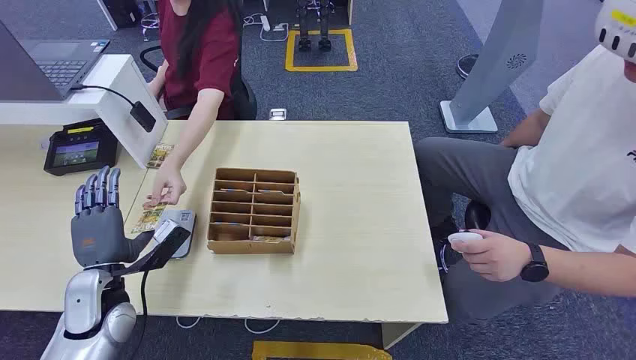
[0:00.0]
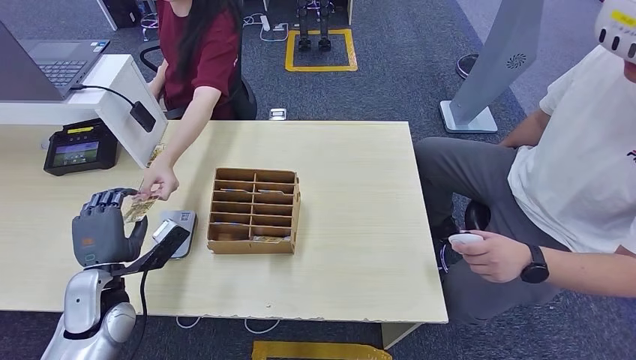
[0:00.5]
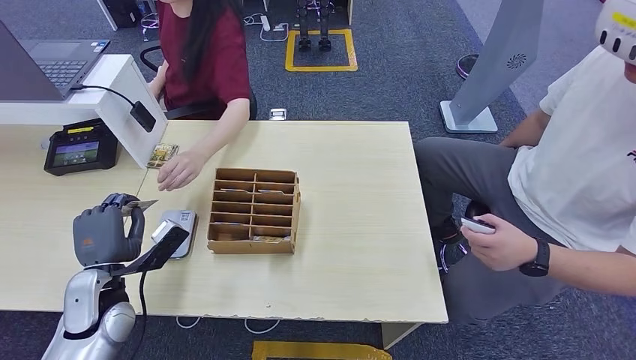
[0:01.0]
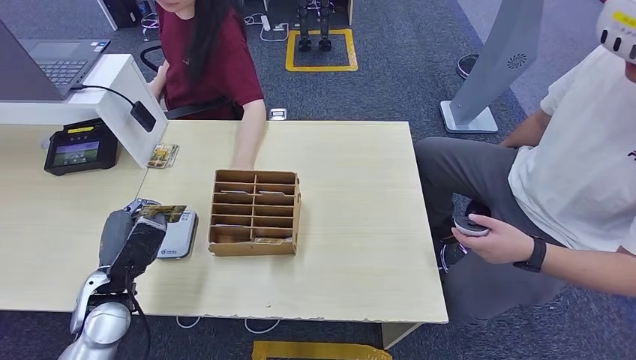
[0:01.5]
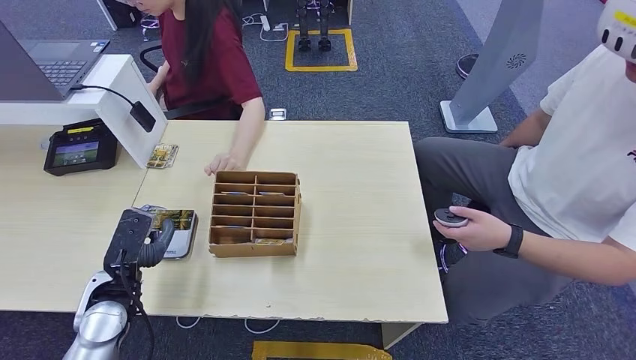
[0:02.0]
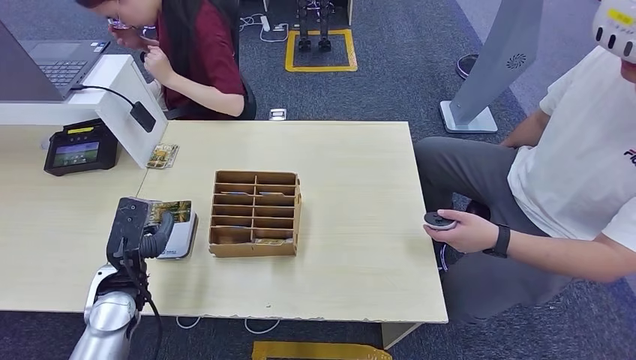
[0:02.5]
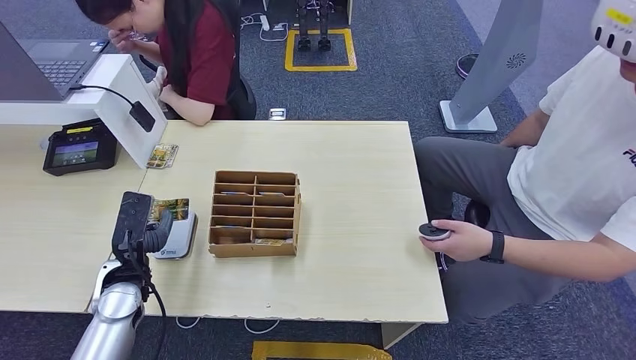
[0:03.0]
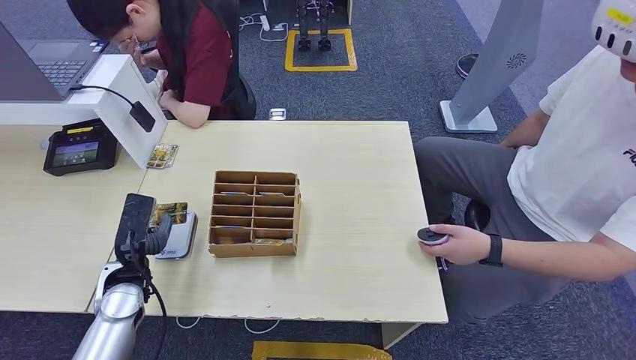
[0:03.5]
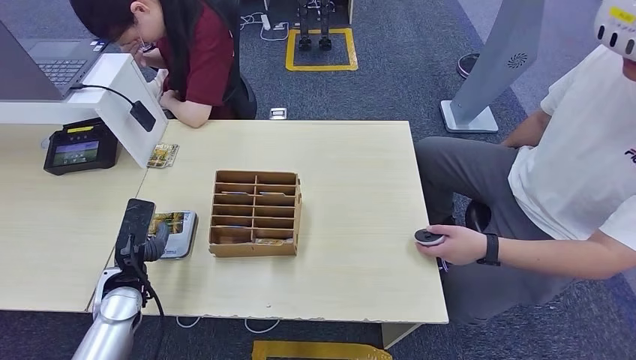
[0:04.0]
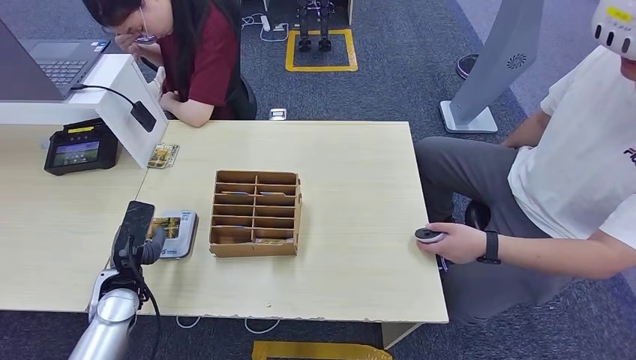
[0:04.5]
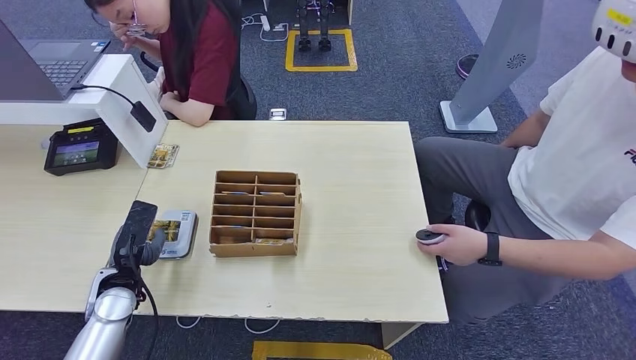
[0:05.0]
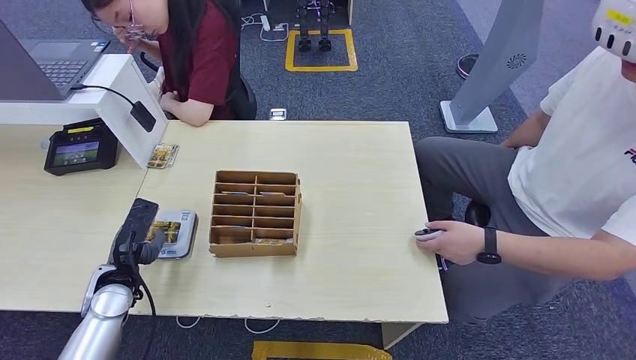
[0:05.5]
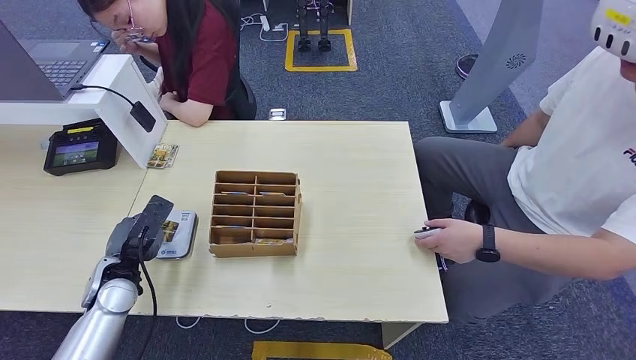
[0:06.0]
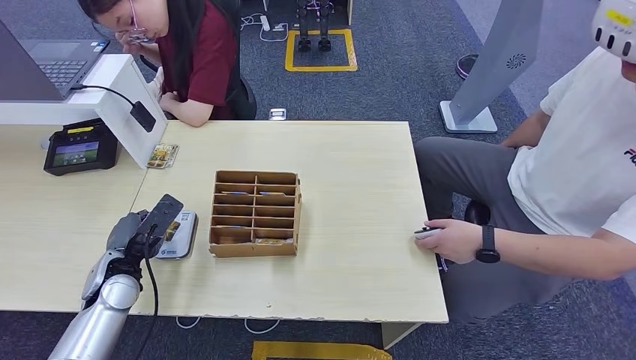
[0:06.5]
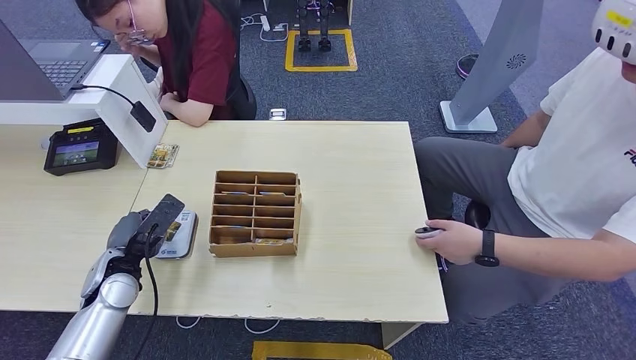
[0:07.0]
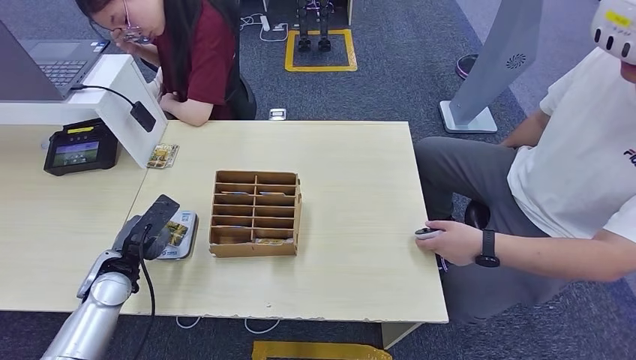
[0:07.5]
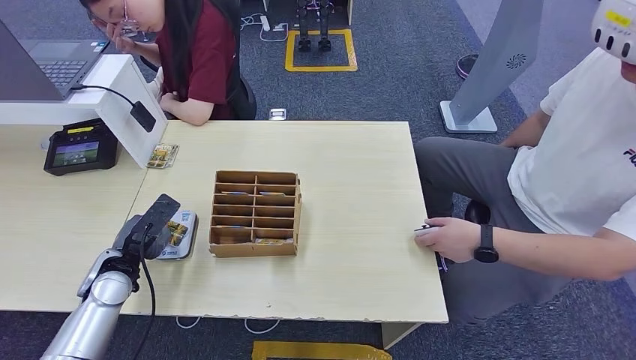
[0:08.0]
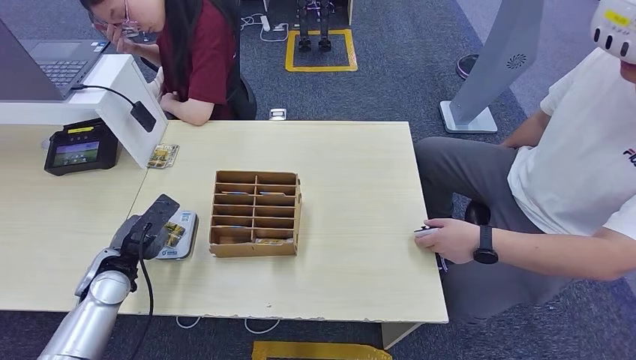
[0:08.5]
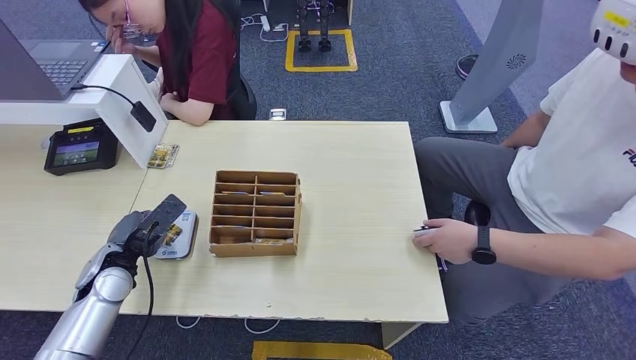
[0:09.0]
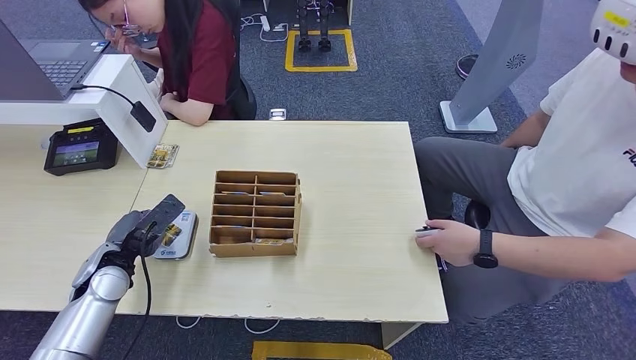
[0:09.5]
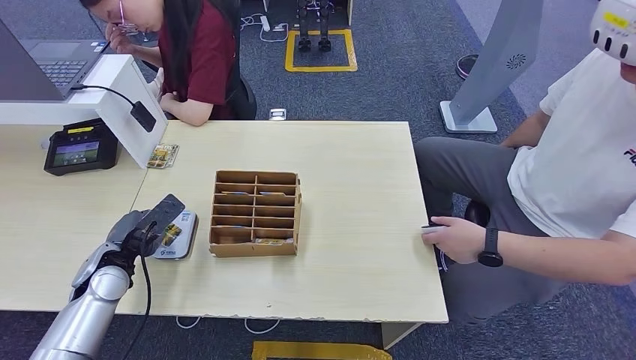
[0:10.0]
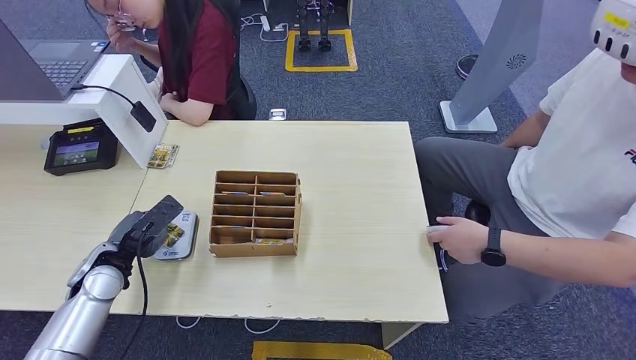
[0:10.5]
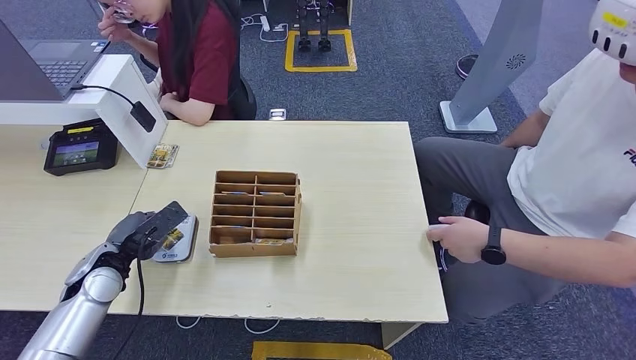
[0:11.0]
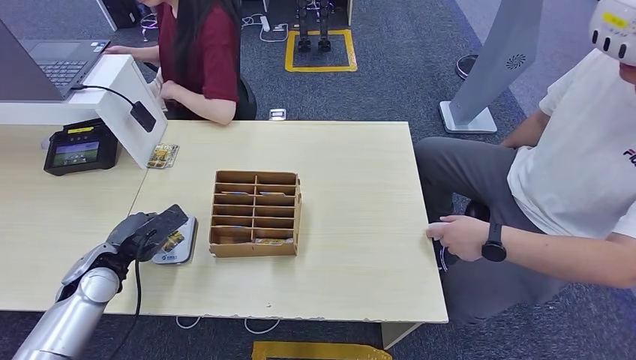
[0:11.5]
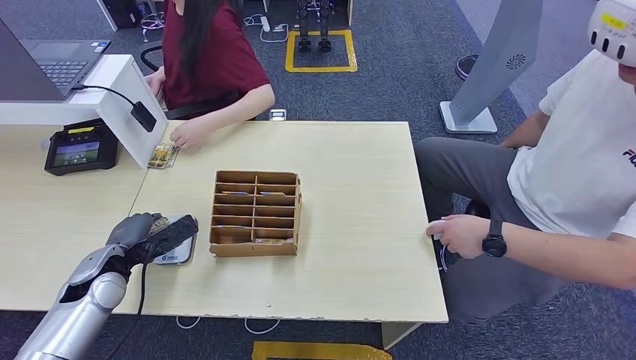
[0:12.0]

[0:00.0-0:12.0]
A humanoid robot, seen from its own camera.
Step, 0:00.0 to 0:00.5: Take the ID card from the person's hand.
Step, 0:01.0 to 0:05.5: Place the ID card on the card reader.
0:02.0 to 0:04.0: The hands stay close to where they were, moving slightly.
0:06.0 to 0:10.0: The hands make only small movements.
0:10.0 to 0:12.0: The hands stay close to where they were, moving slightly.

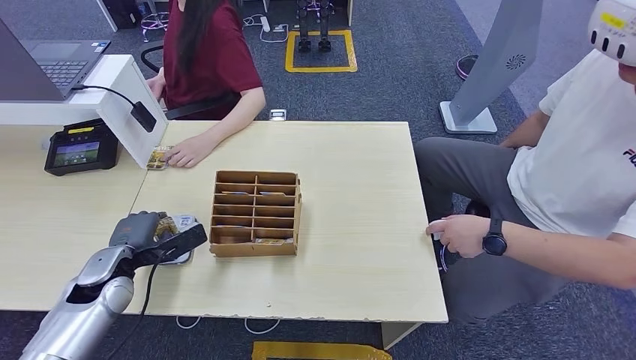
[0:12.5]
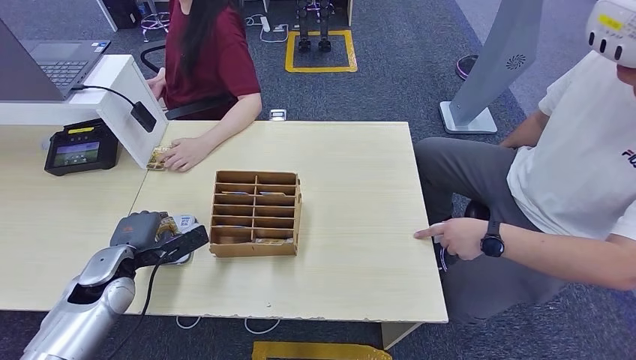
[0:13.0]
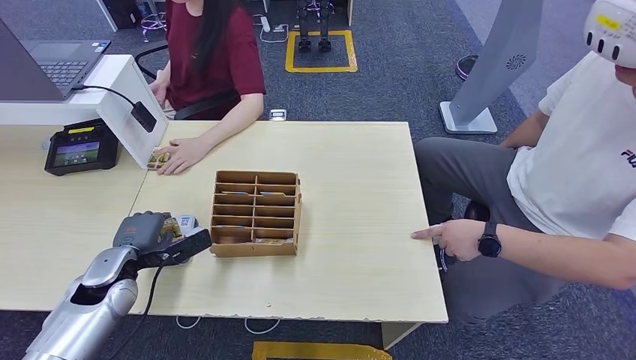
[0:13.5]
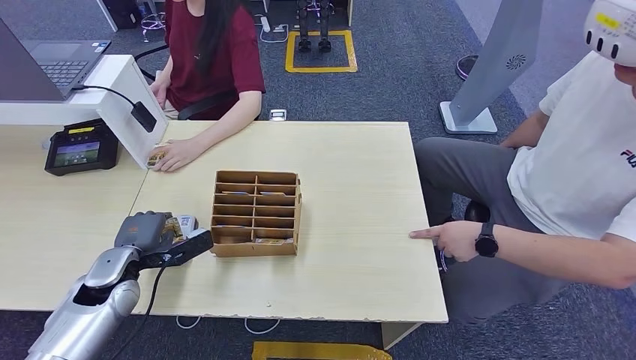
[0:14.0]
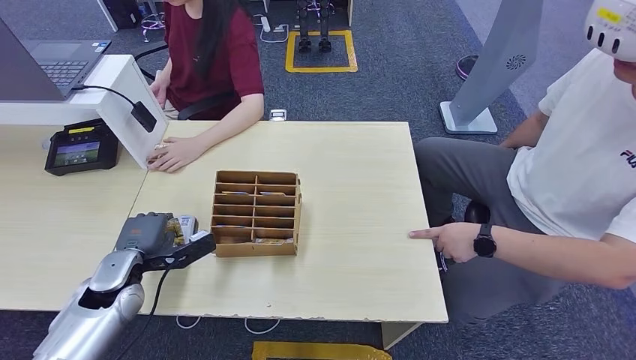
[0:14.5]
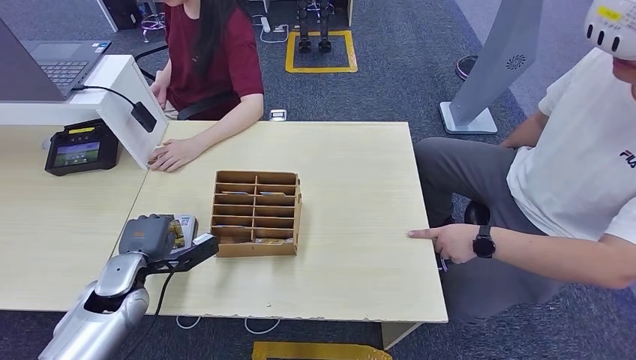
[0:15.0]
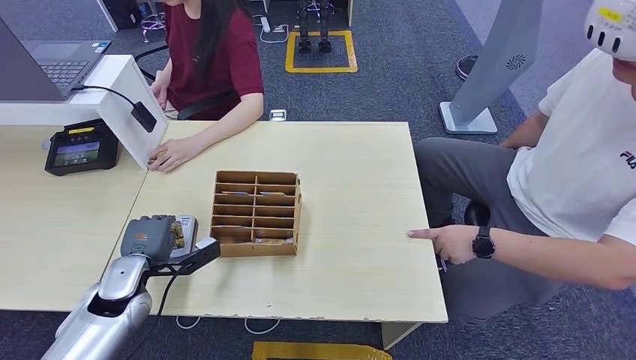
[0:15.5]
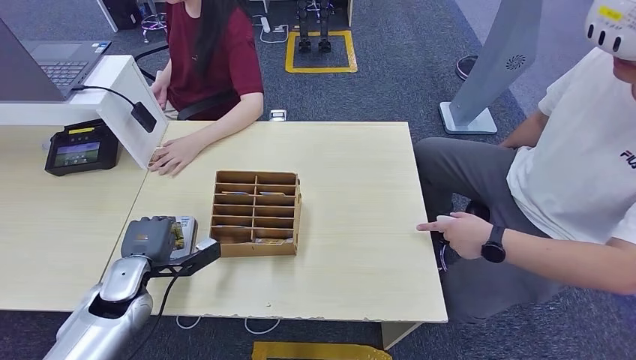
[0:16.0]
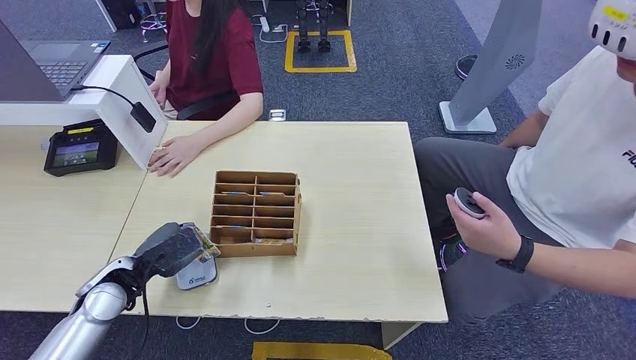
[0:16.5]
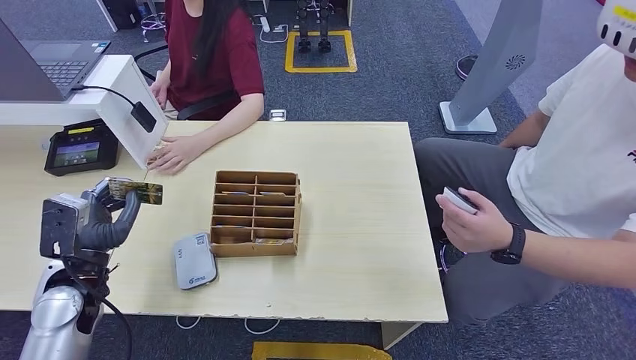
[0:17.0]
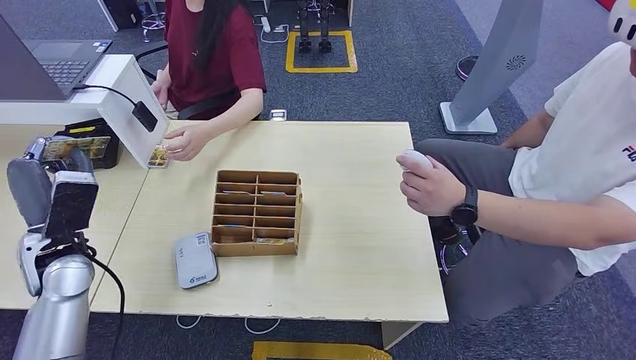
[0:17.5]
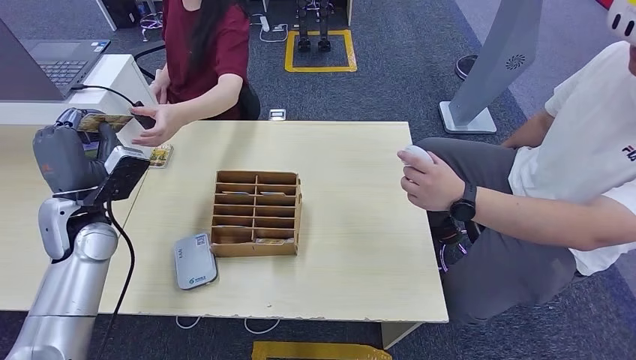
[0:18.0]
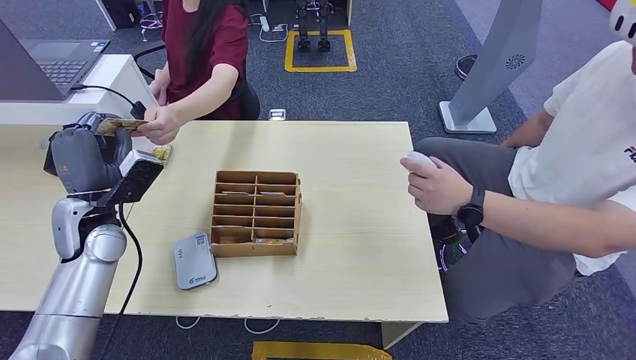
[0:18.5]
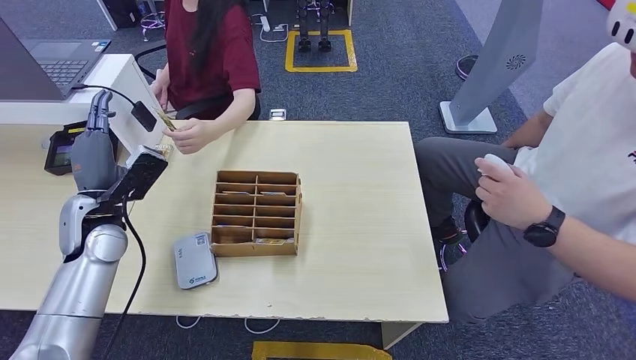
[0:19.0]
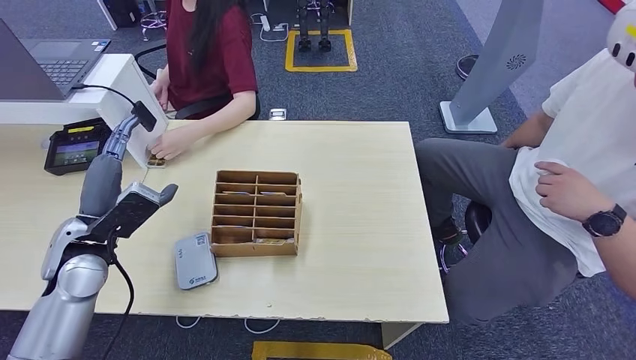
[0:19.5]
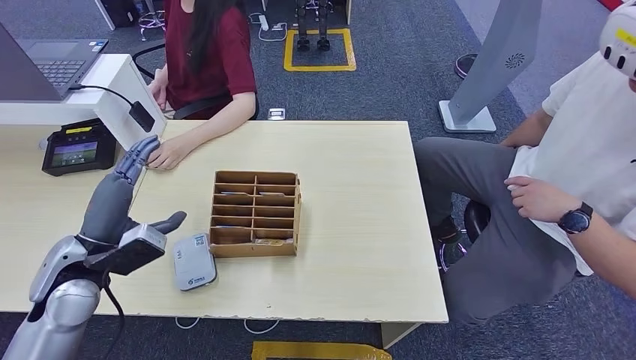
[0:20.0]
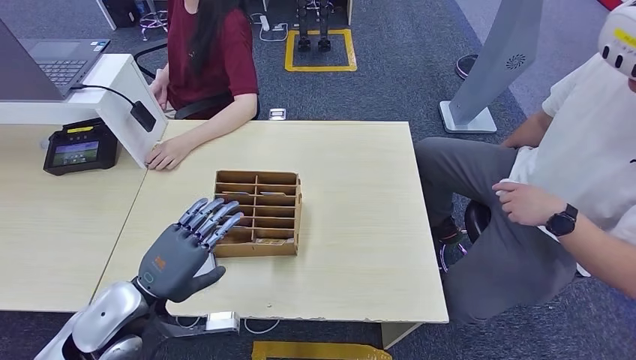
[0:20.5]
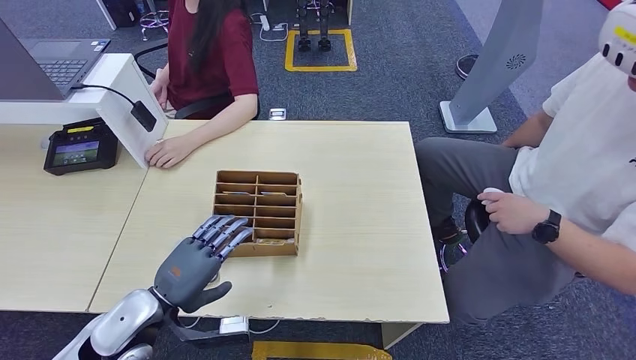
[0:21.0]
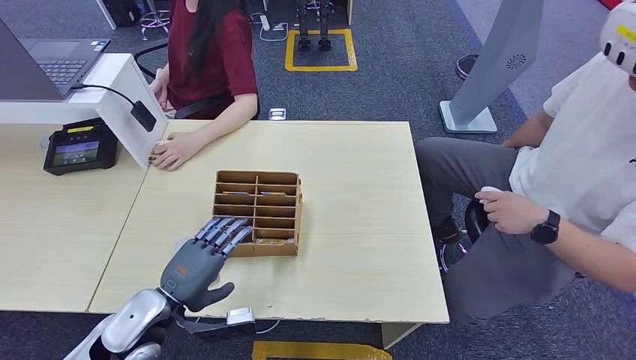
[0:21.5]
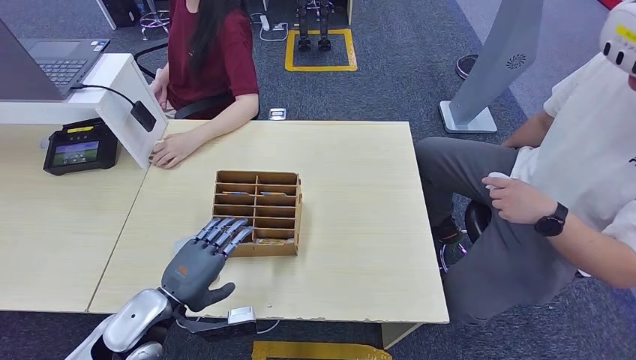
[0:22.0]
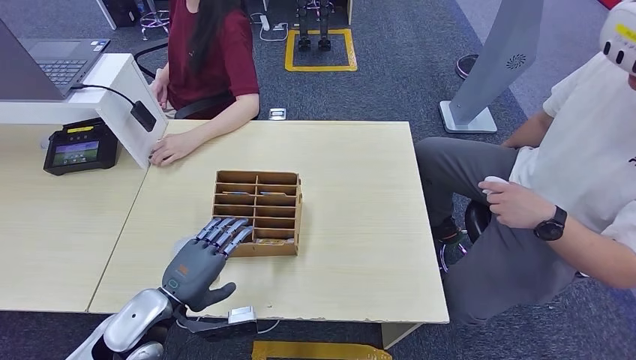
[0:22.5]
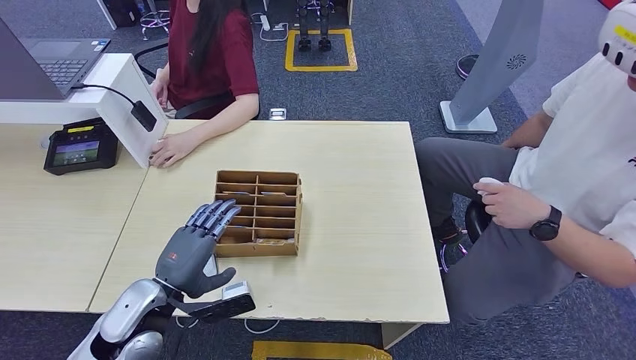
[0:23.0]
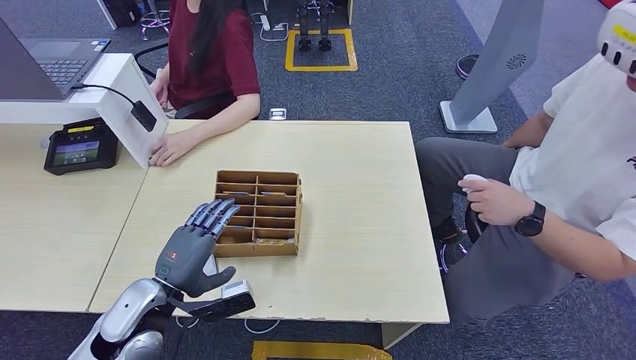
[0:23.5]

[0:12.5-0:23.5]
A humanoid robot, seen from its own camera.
Step, 0:12.5 to 0:18.5: Hand the room key to the person.
0:12.5 to 0:16.0: There are only small adjustments of the hands.
0:18.0 to 0:20.0: The left hand moves backward, some 10 cm.
0:20.0 to 0:21.5: The right hand travels downward by about 5 cm; the left hand shifts roughly 15 cm downward, to the right and backward.
0:21.5 to 0:23.5: The hands move only a little.
